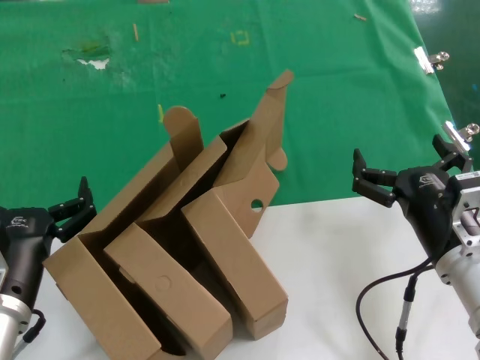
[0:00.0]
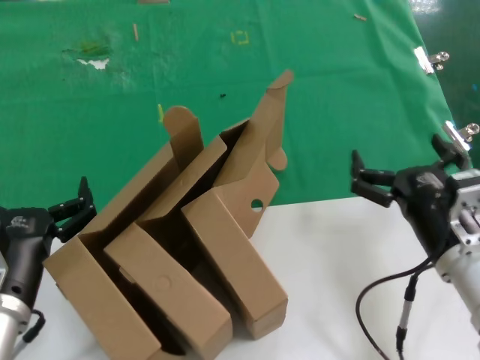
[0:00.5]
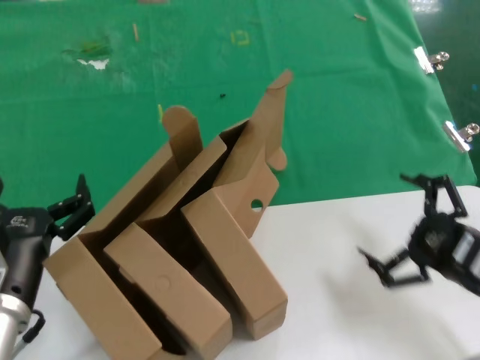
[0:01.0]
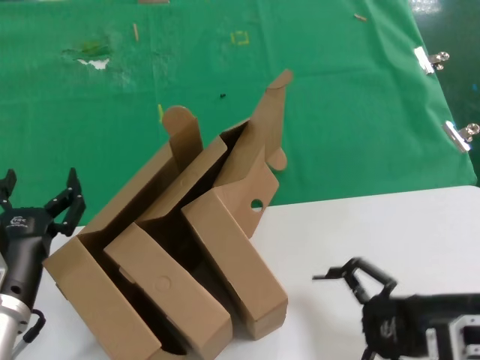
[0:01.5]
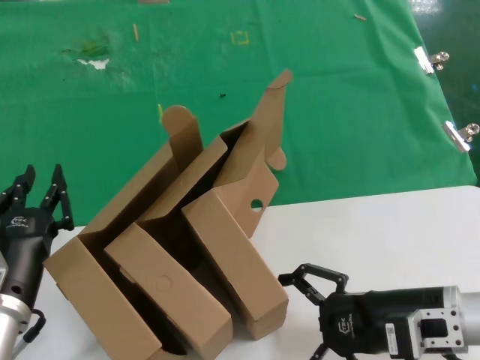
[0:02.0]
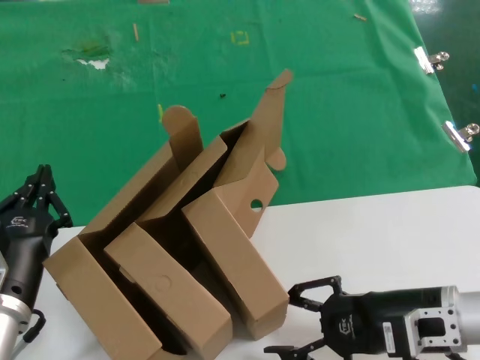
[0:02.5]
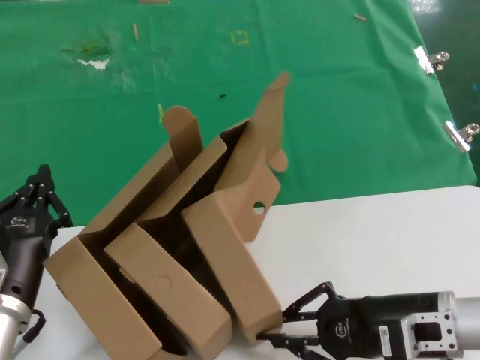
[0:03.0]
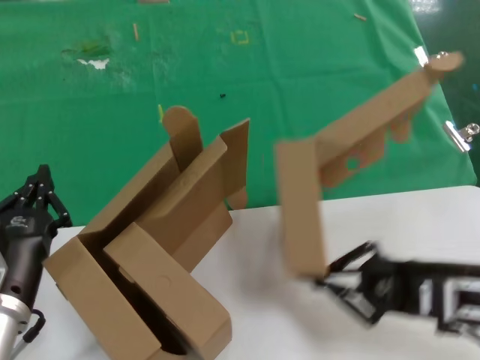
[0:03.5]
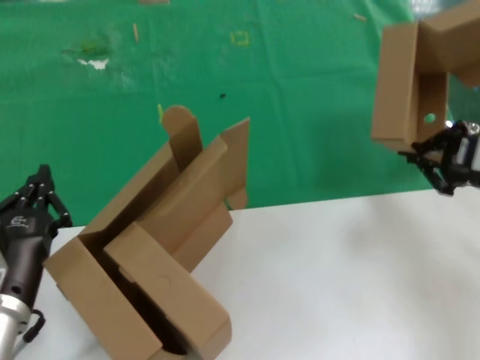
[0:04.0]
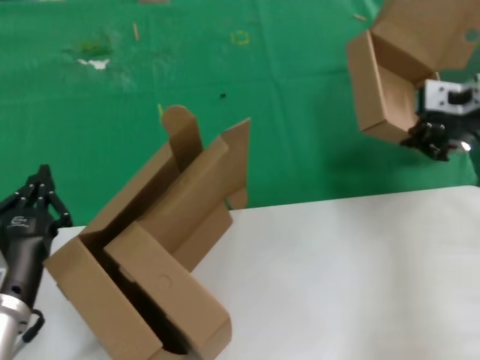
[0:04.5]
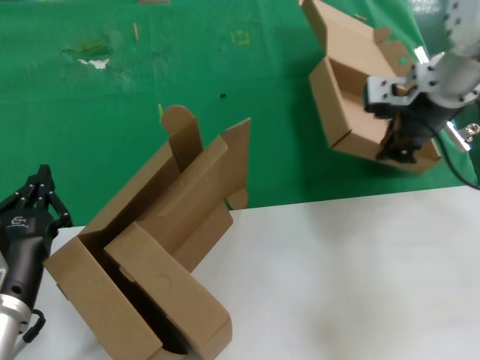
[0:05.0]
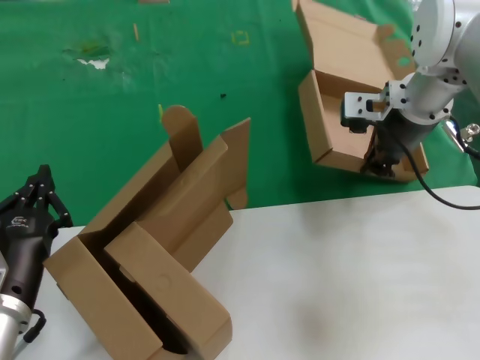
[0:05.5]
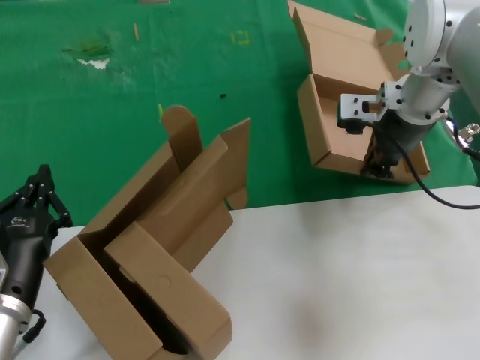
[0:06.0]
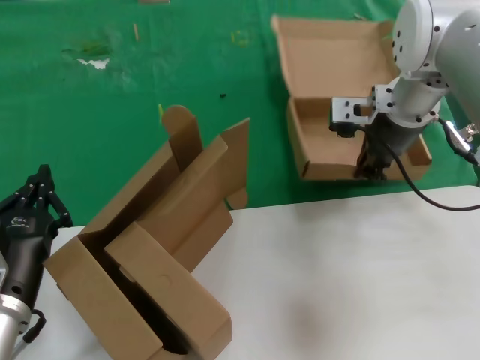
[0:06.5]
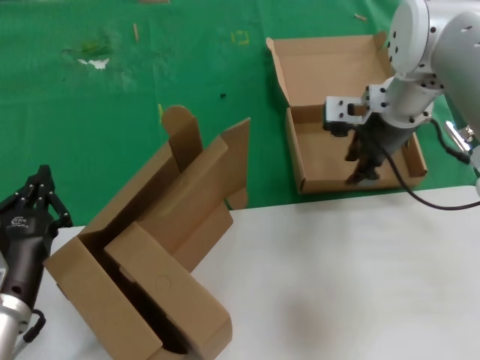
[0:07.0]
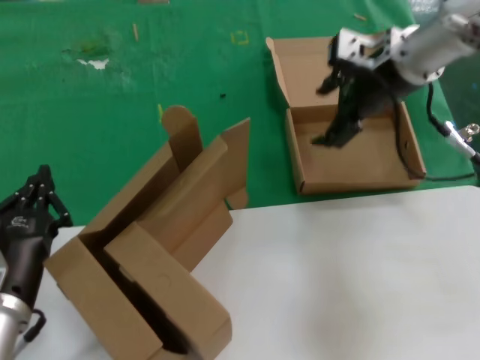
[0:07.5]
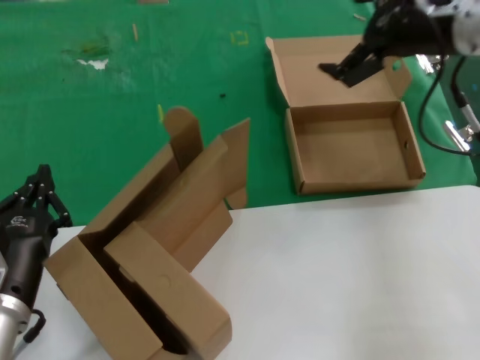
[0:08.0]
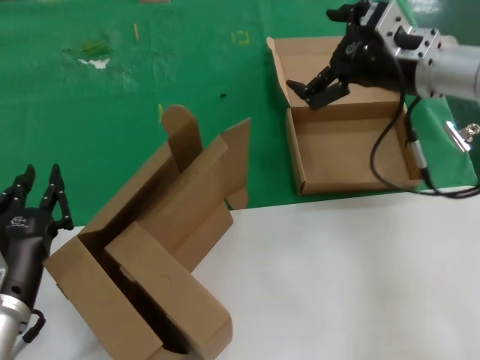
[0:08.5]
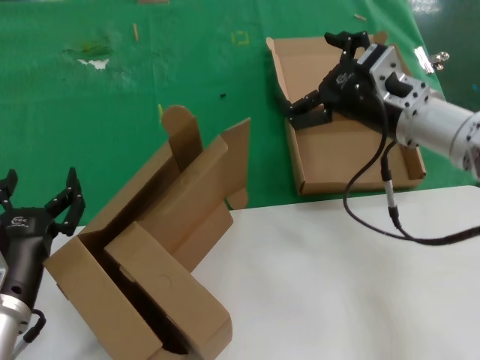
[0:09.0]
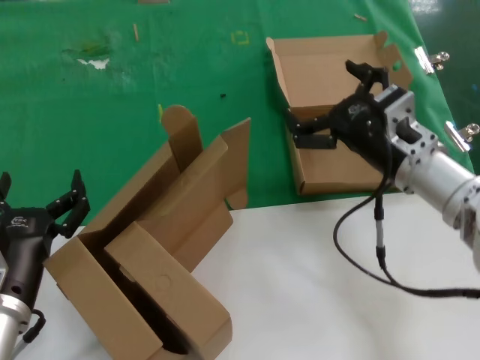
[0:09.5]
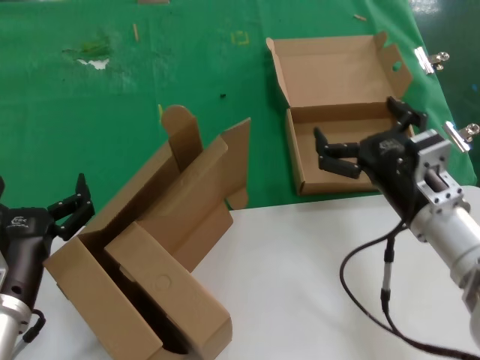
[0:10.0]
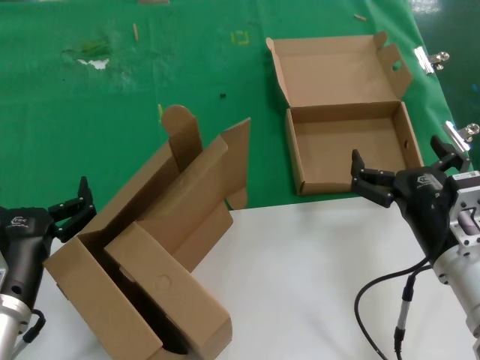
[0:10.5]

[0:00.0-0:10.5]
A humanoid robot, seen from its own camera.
Task of the whole recording: pick up the paper box and put it at the back.
Step, 0:00.0 to 0:03.0: Grasp the paper box.
Step, 0:03.5 to 0:07.0: Place the paper box on the table.
0:00.0 to 0:02.0: The right hand reaches some 10 cm to the right, then returns.
0:02.0 to 0:04.0: The right hand travels upward, to the right and forward by roughly 15 cm.
0:04.0 to 0:06.5: The right hand moves forward and to the left, some 25 cm.
0:06.5 to 0:08.5: The right hand travels backward by roughly 5 cm.
0:08.5 to 0:10.5: The right hand shifts roughly 25 cm downward and backward.
